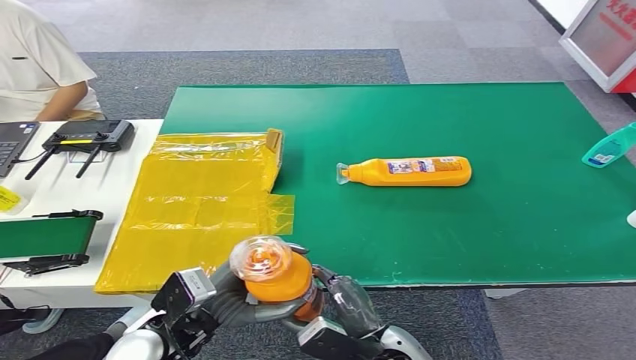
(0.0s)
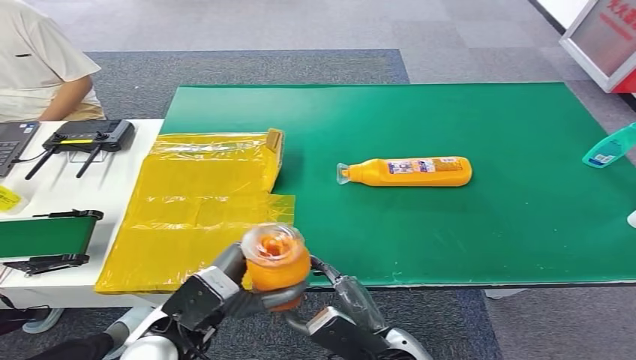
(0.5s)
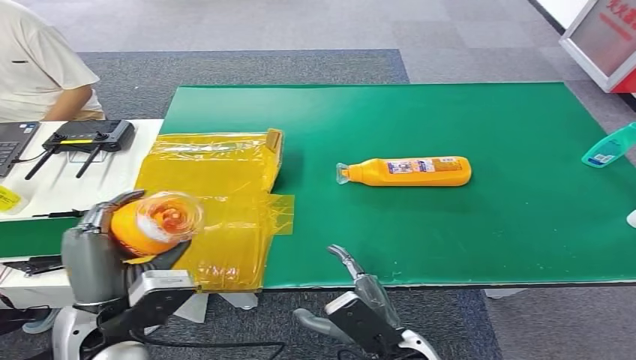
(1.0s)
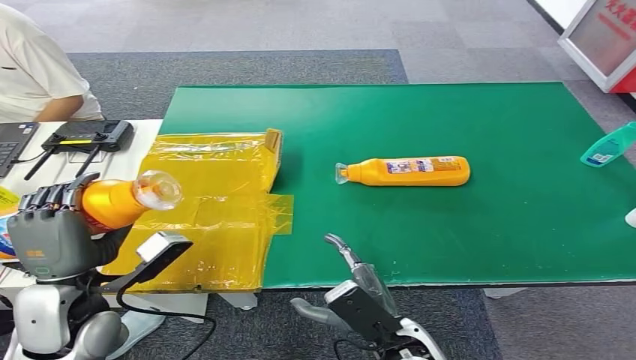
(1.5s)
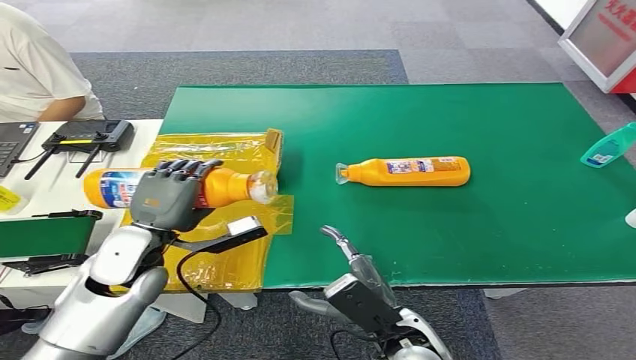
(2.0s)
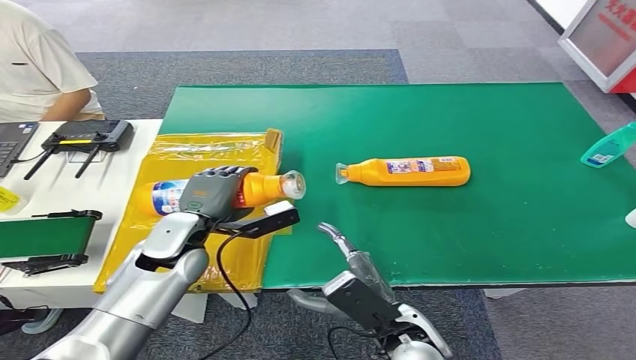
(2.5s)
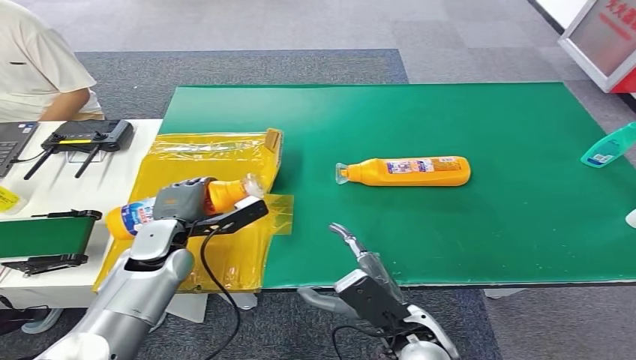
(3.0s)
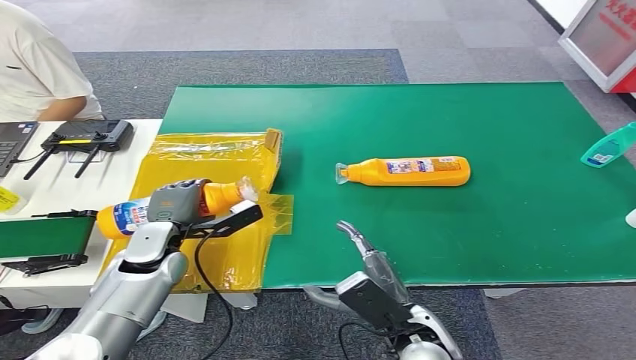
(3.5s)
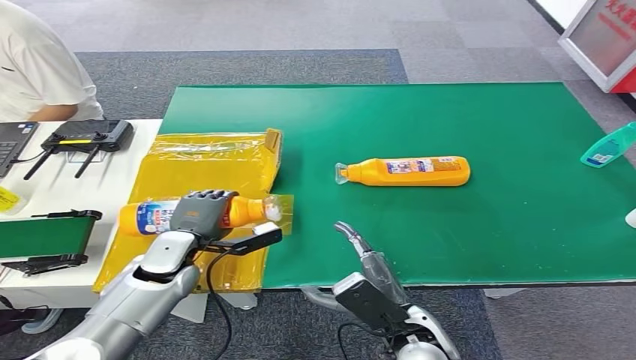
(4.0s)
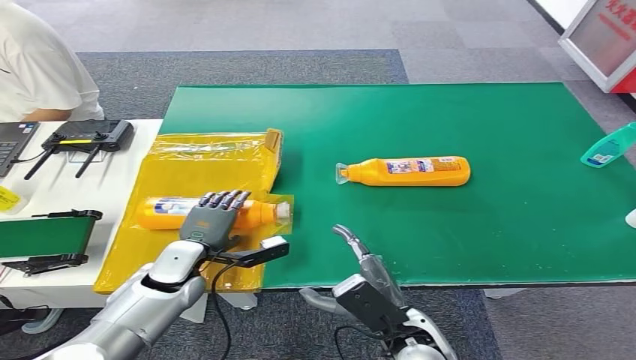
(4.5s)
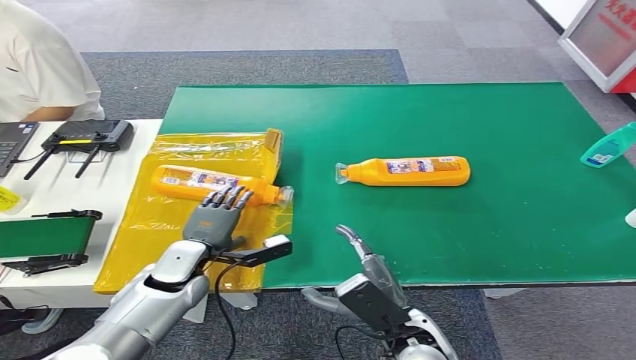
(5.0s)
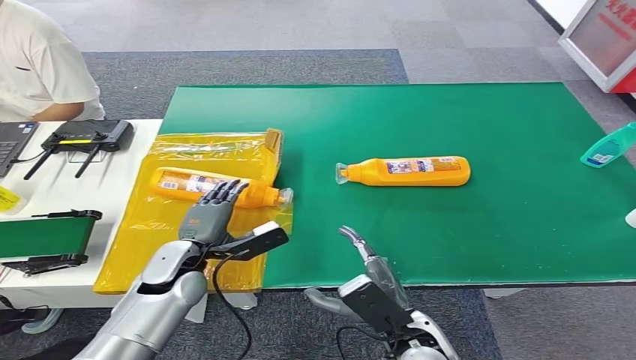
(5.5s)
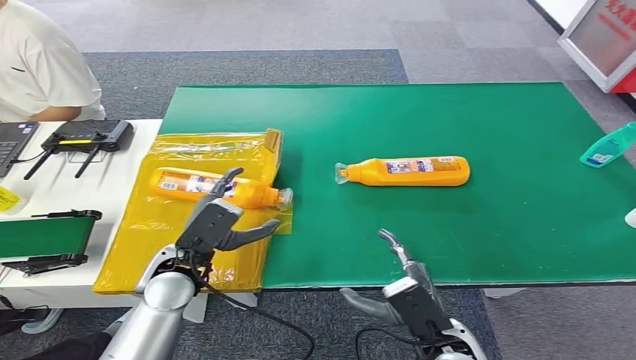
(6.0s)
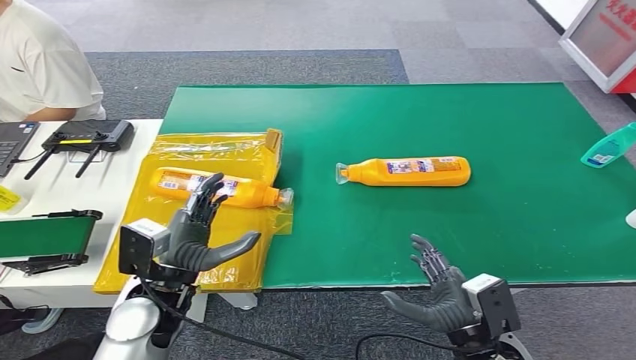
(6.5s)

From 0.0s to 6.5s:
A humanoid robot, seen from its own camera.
Step, from 0.0s to 6.5s: Turn the bottle to the front side.
From 0.0s to 2.0s: The left hand is displaced forward and to the left by about 15 cm.
From 2.0s to 4.5s: The left hand is displaced downward by roughly 10 cm.
From 4.5s to 6.5s: The left hand goes roughly 10 cm backward and upward. The right hand heads to the right, covering some 10 cm.
